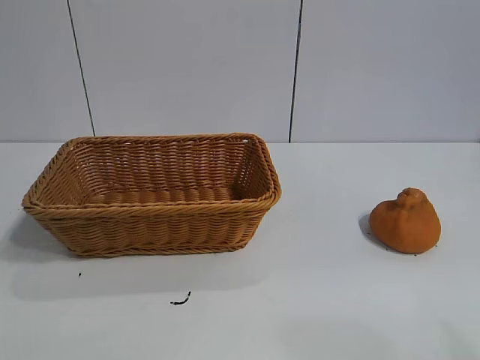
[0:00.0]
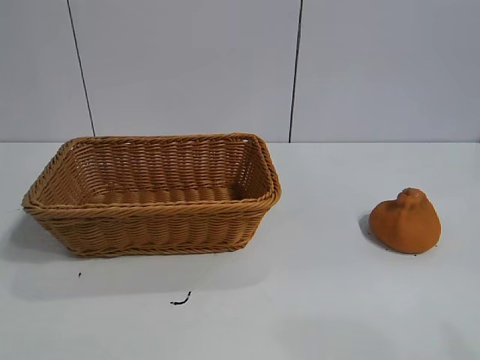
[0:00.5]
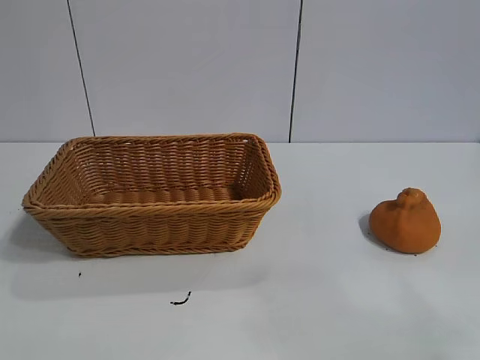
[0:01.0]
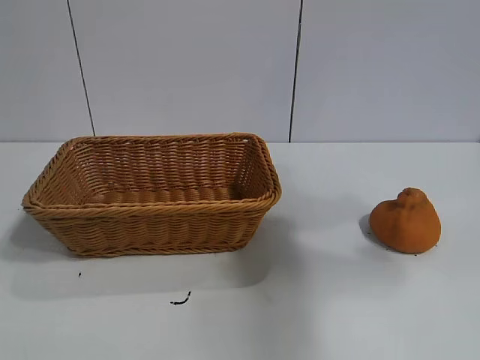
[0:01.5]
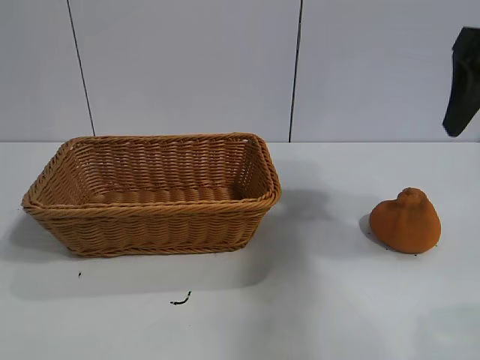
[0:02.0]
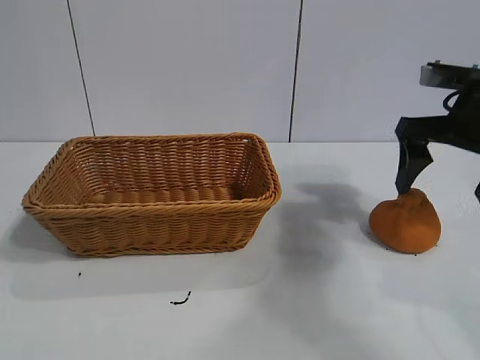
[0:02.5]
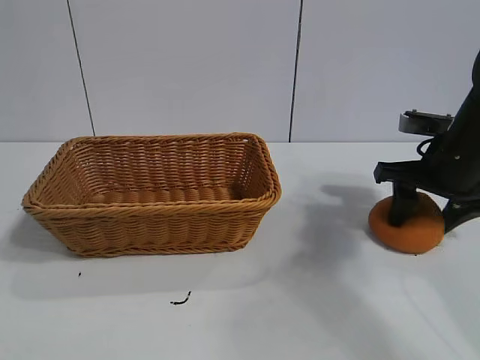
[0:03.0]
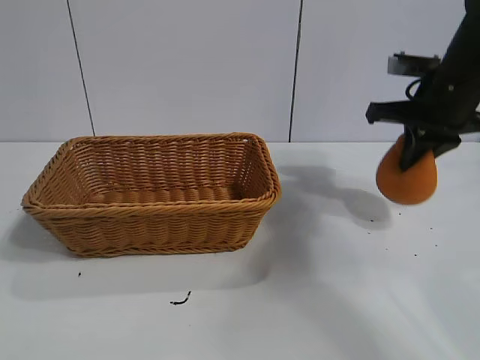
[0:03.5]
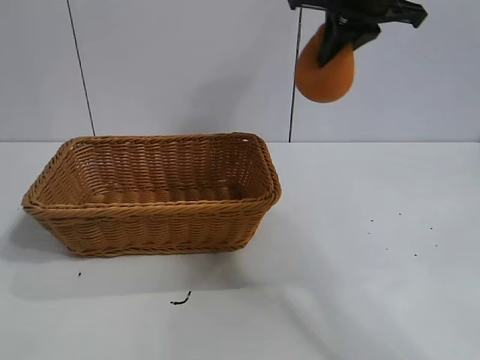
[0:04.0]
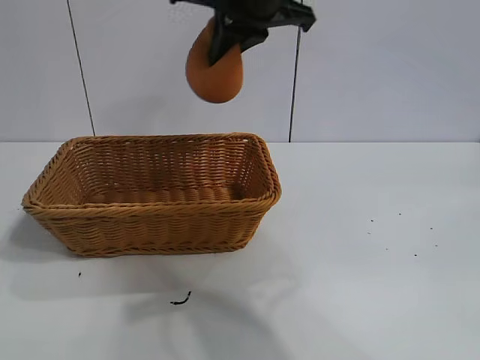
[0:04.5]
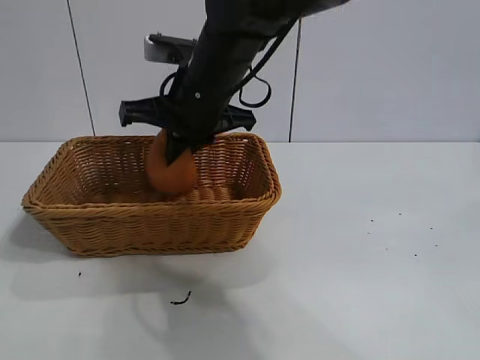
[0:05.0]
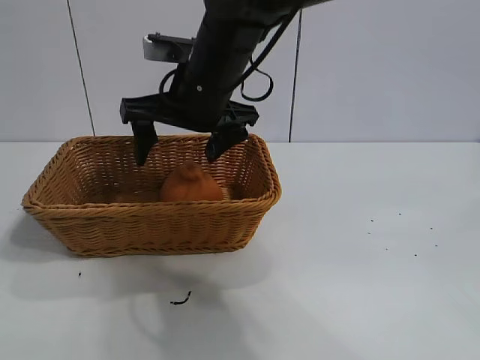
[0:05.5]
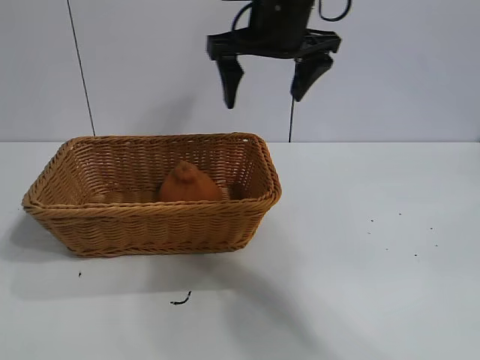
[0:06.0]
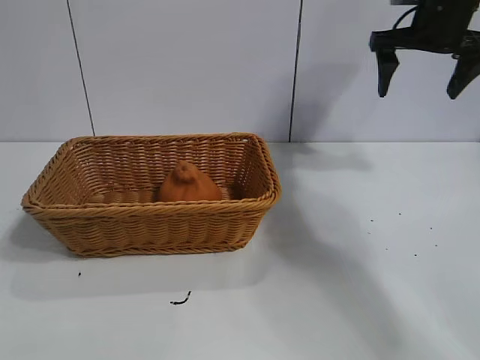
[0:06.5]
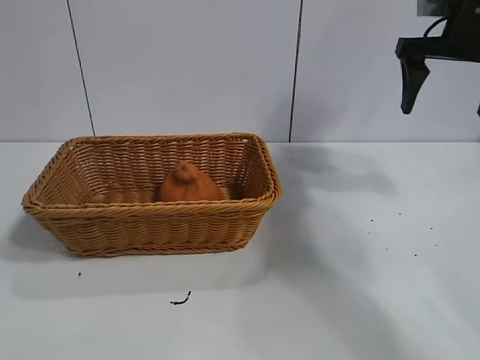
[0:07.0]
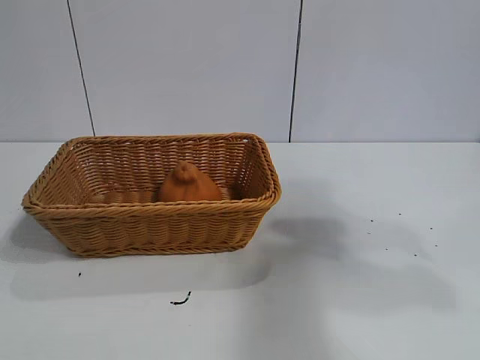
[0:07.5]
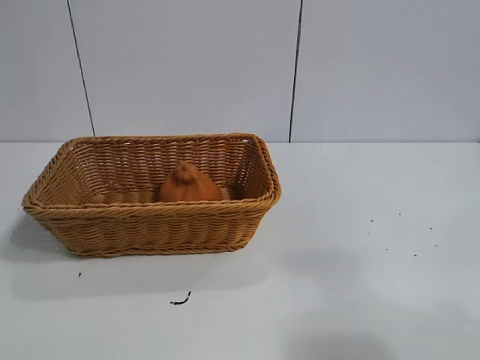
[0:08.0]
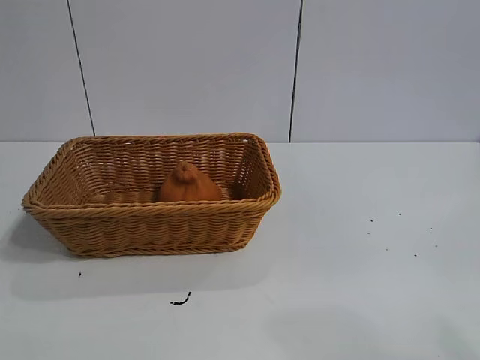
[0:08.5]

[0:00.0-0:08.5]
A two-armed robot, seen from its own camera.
Task of the whole recording: pick up the orange and put it into the basket.
Step, 0:01.0 to 0:03.0: Grasp the orange with right gripper.
Step, 0:03.5 to 0:05.0: Place the orange in the basket with right gripper.

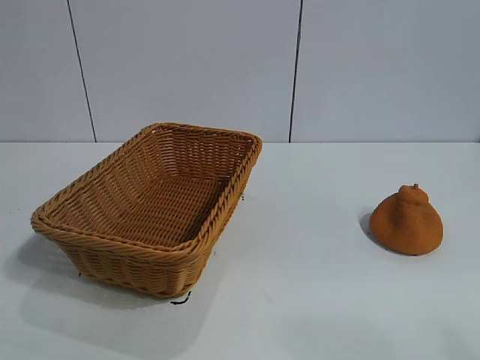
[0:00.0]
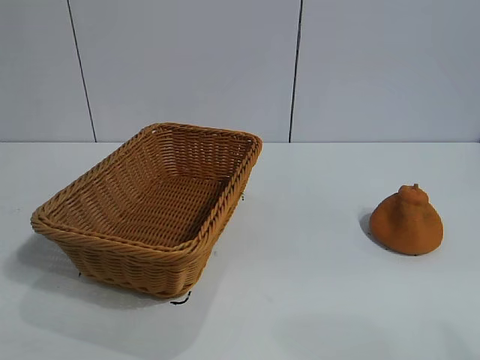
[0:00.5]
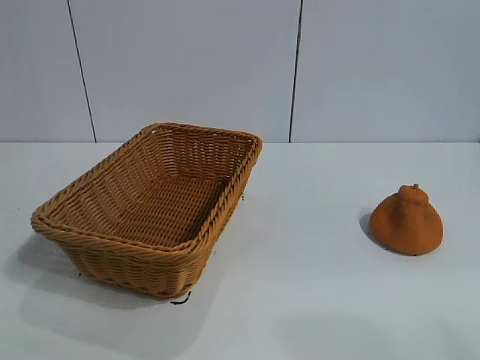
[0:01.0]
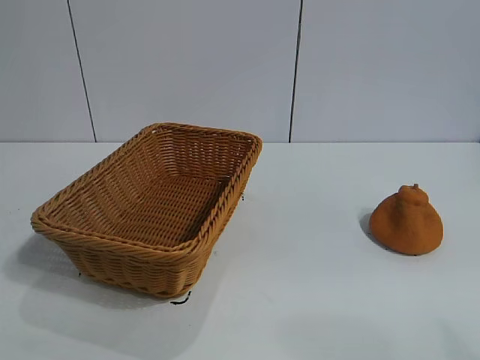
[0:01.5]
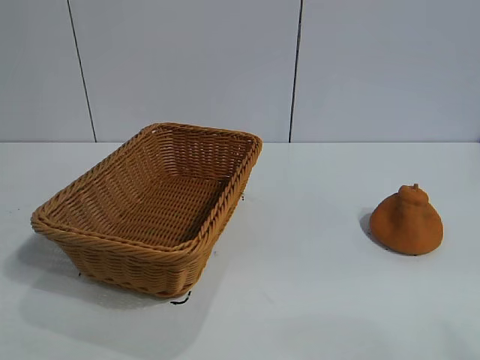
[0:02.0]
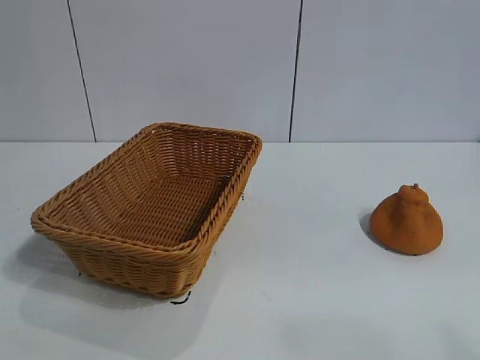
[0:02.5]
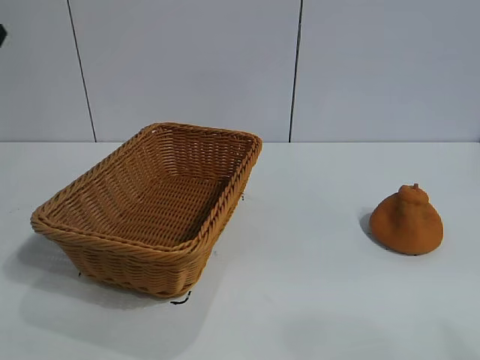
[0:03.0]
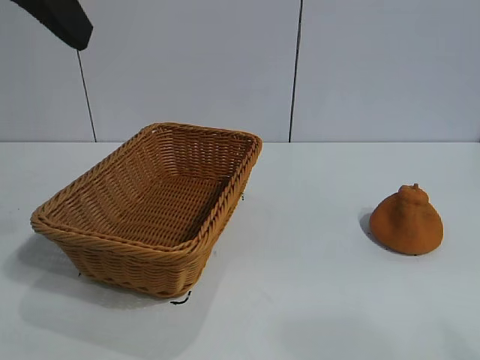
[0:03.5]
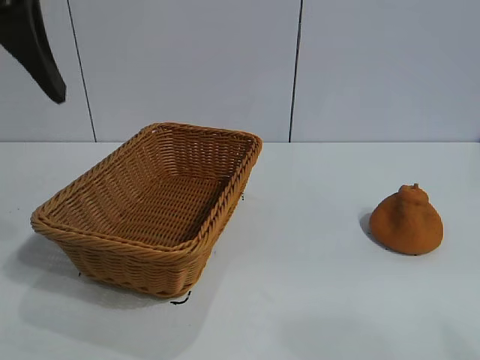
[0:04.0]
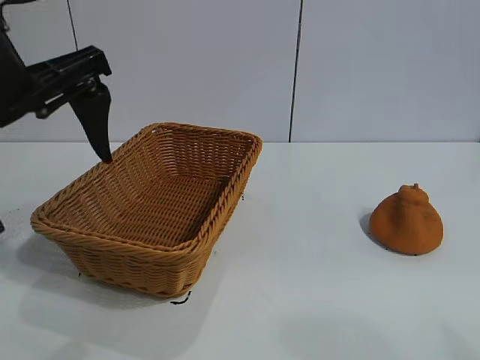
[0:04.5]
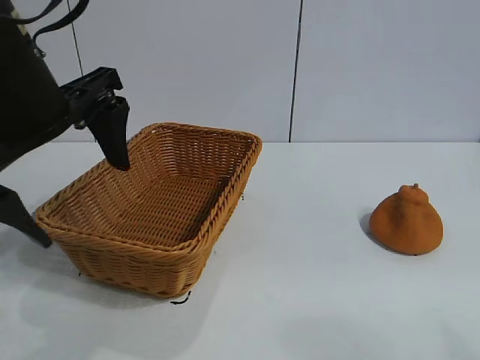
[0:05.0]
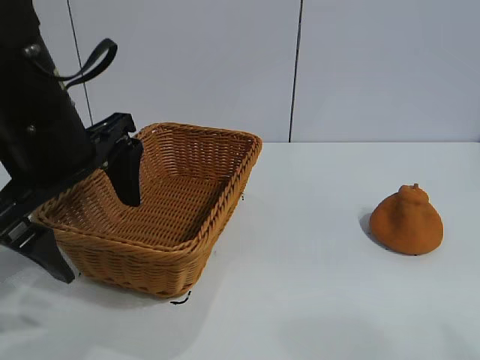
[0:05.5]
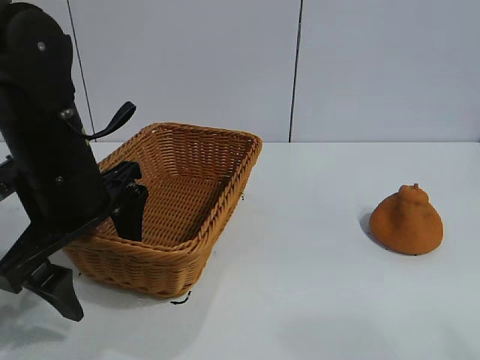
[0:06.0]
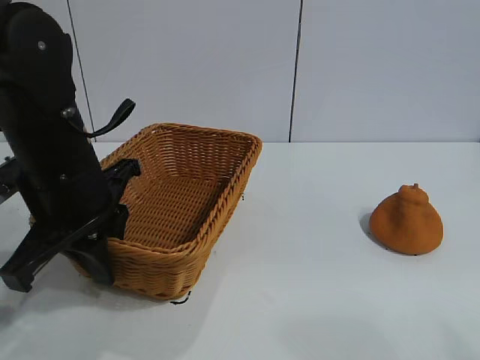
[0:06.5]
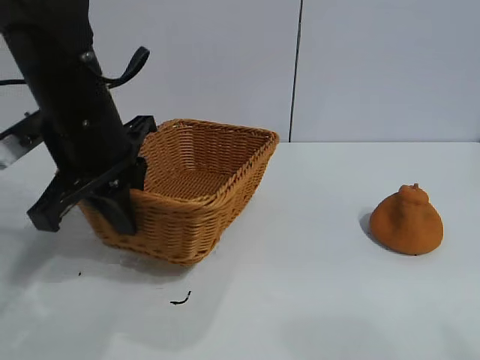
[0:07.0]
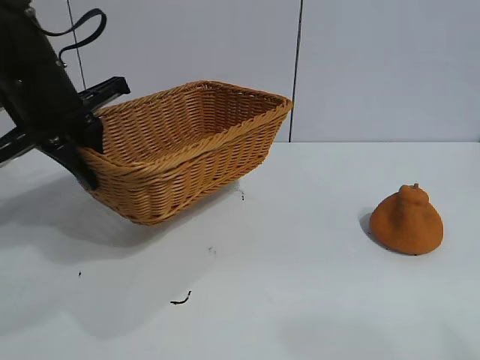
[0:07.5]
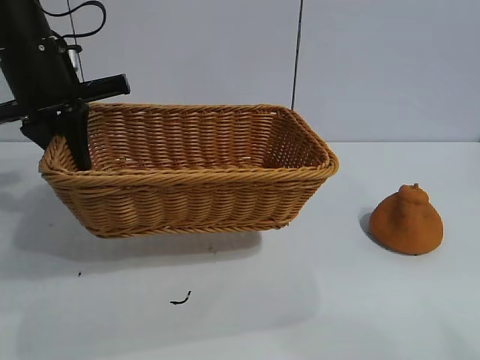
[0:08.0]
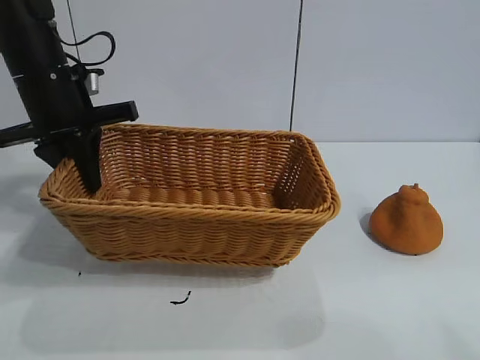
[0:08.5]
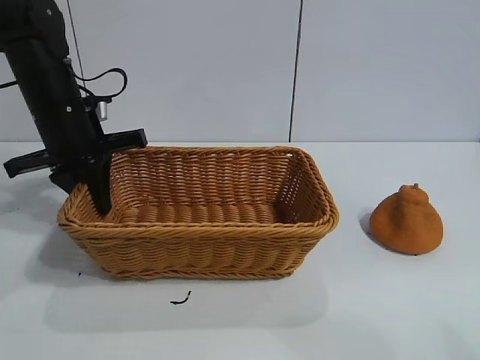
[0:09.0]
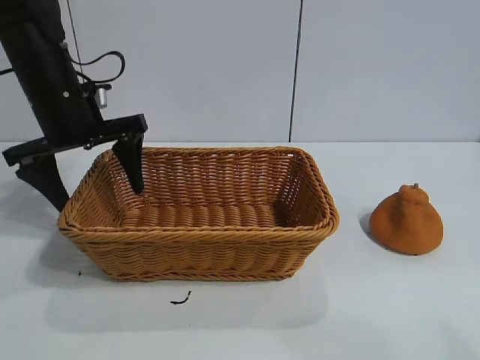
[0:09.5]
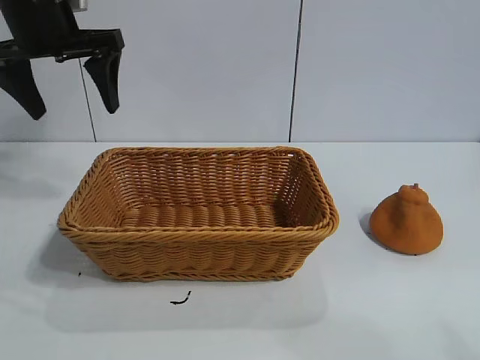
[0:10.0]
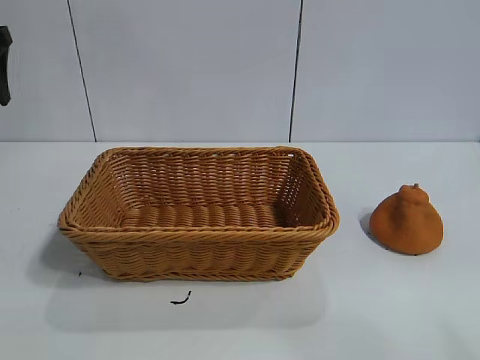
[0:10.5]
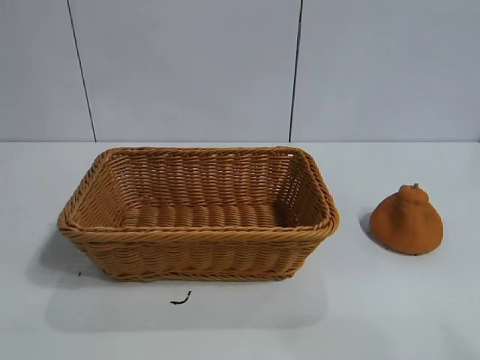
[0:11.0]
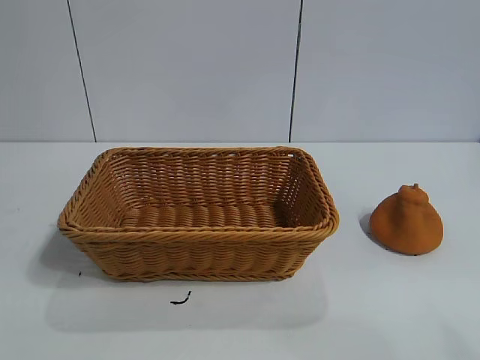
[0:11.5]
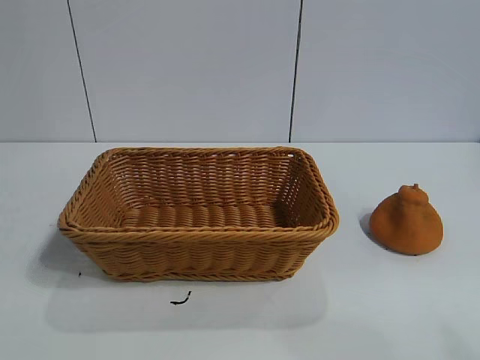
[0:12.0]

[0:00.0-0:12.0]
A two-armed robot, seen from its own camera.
Task of the whole recording: pick up the orange and put it into the basket.
Step, 0:02.0 to 0:06.5: Grasp the basket with left gripper.
Step, 0:07.0 to 0:09.5: Place the basket in the center of view with left gripper.

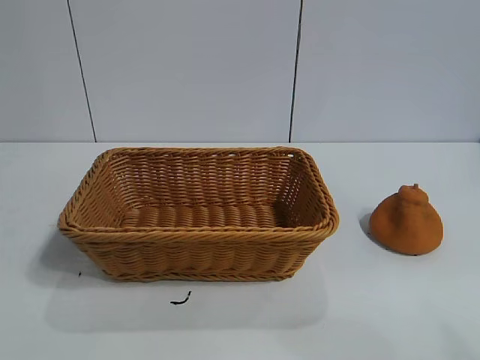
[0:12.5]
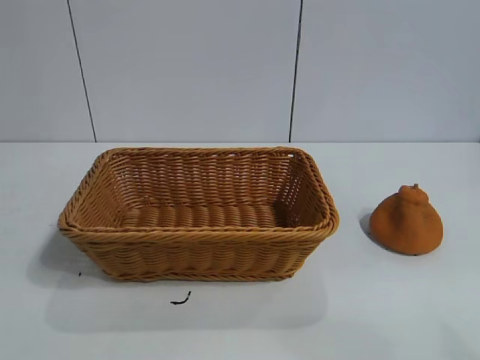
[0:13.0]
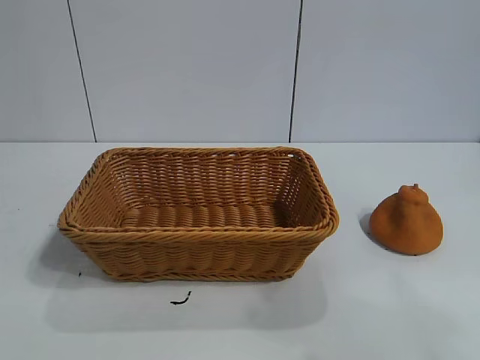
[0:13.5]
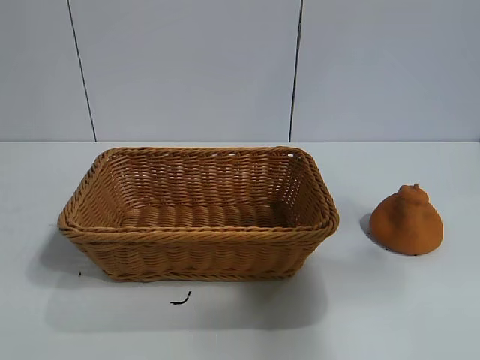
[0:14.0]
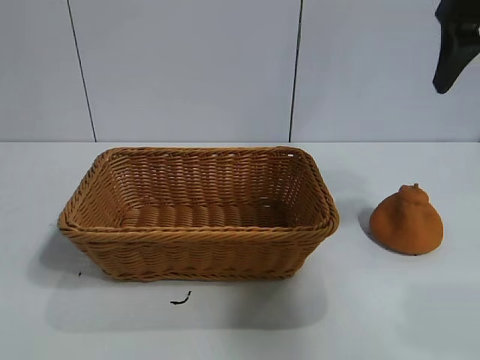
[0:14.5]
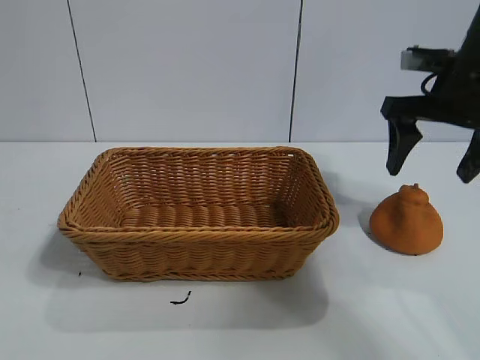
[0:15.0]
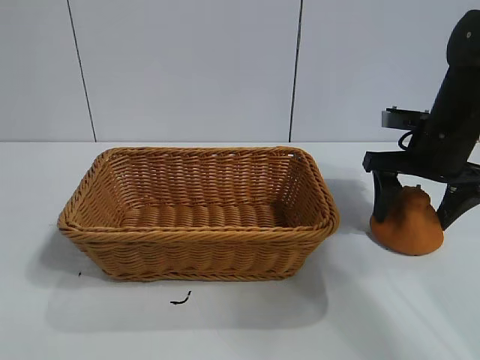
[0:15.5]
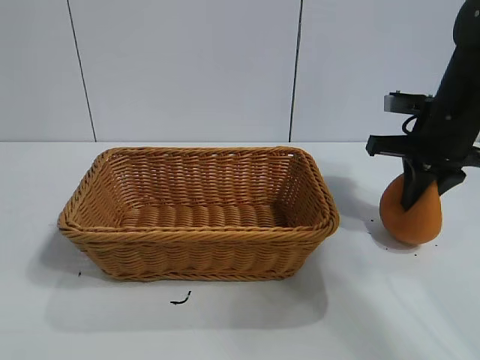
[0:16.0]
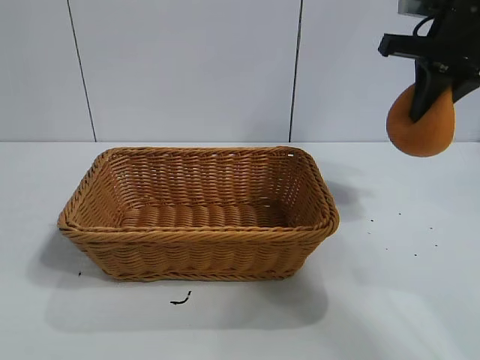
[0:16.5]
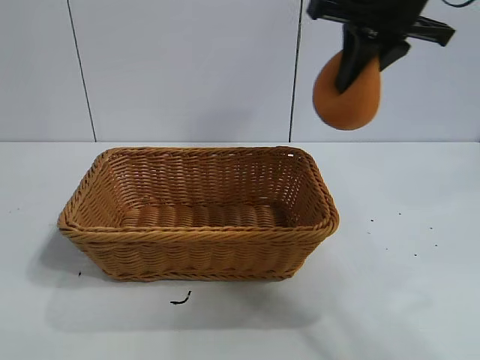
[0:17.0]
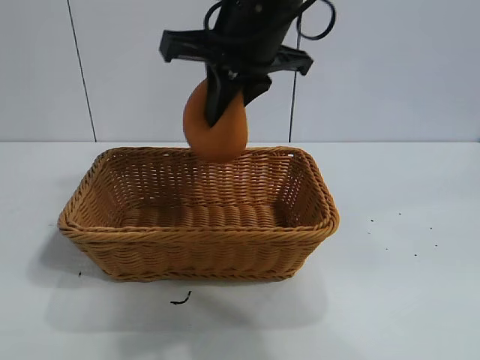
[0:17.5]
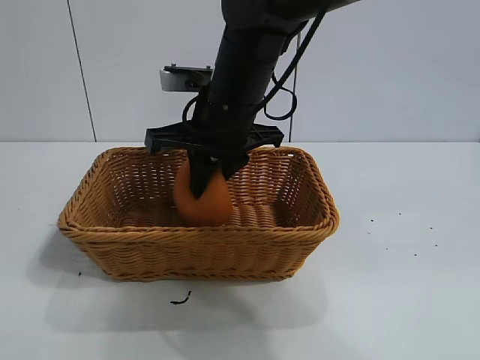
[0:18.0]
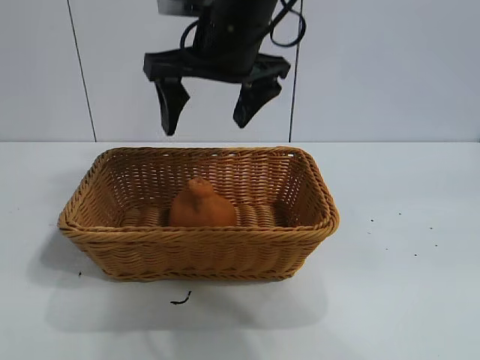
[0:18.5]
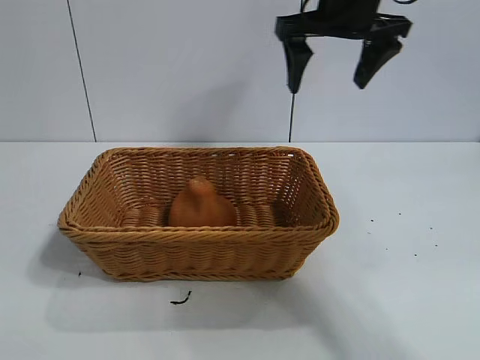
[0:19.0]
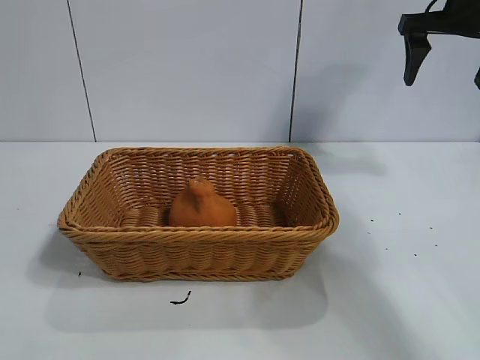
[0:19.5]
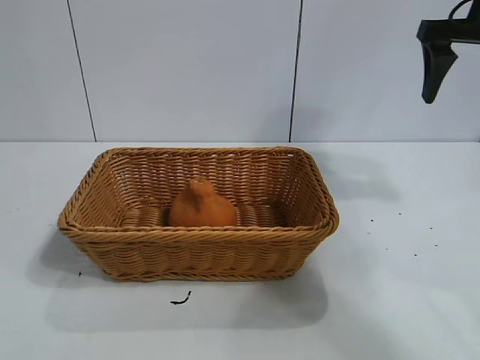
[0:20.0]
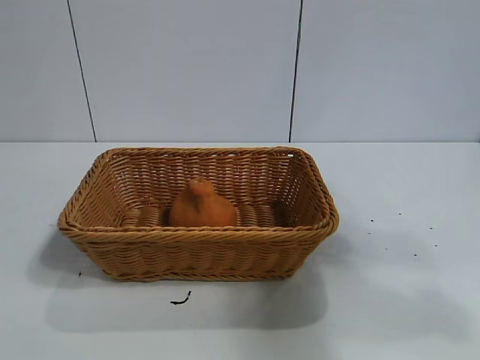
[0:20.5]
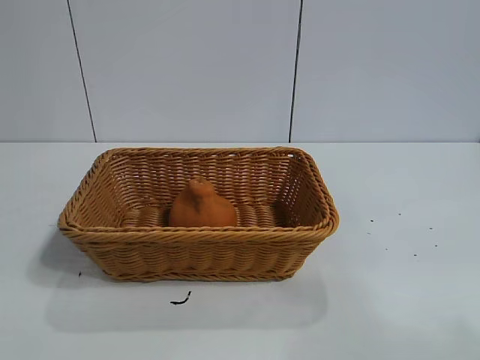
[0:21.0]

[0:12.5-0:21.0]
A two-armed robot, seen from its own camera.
Task of the whole recording: pick up the orange and put it into the basket.
Step, 0:12.5 to 0:15.5: Grasp the orange with right gripper.
Step, 0:16.5 to 0:18.0: Place the orange in the basket with right gripper.
